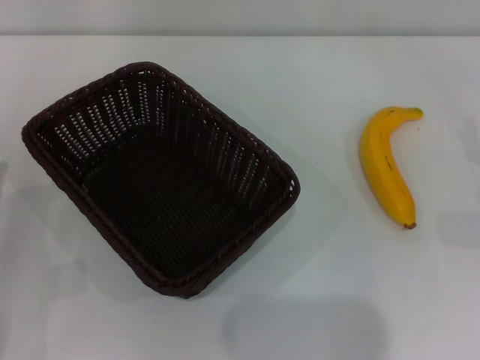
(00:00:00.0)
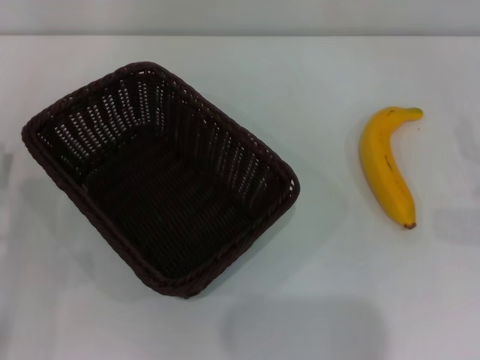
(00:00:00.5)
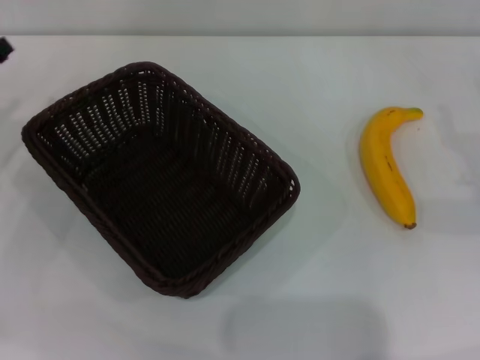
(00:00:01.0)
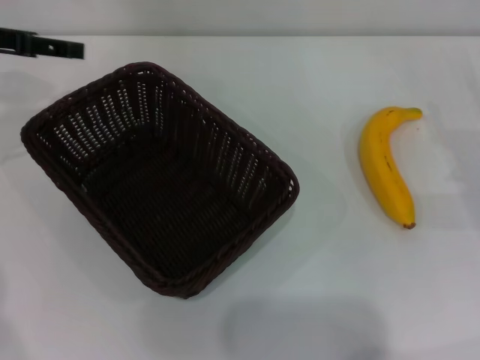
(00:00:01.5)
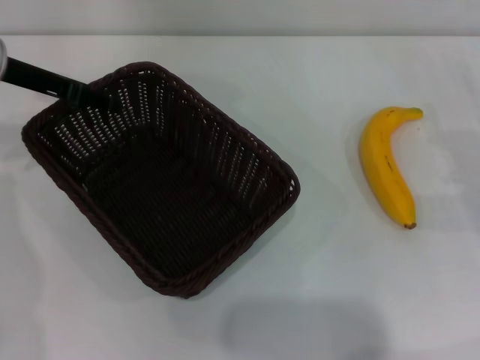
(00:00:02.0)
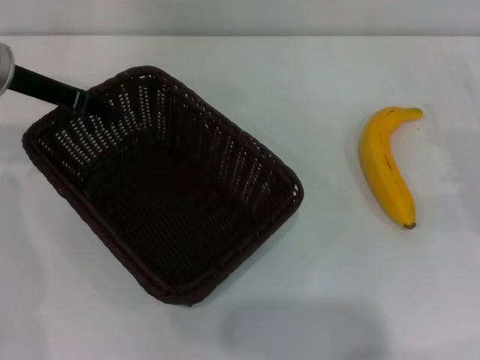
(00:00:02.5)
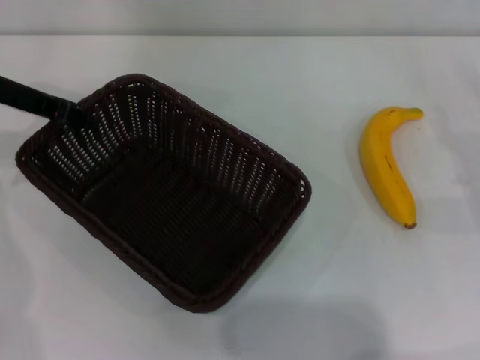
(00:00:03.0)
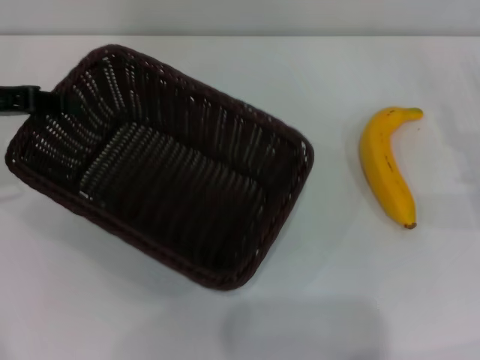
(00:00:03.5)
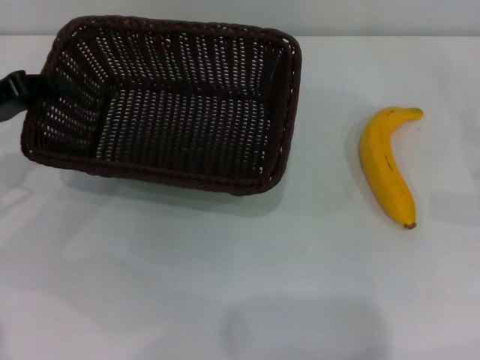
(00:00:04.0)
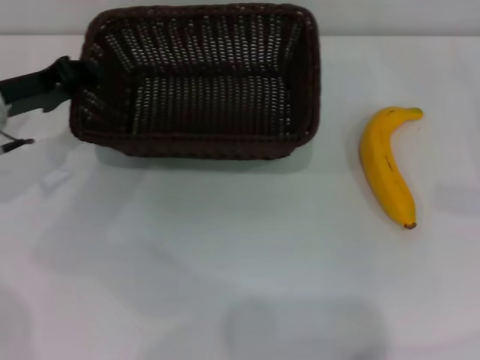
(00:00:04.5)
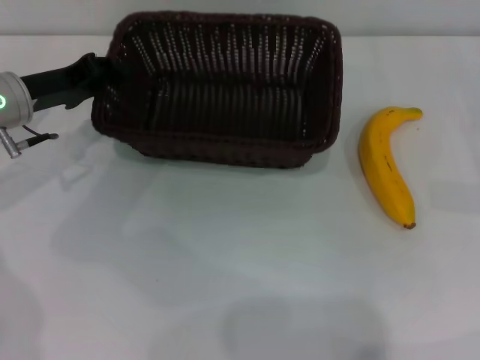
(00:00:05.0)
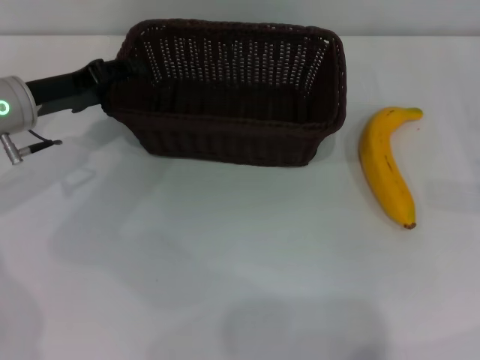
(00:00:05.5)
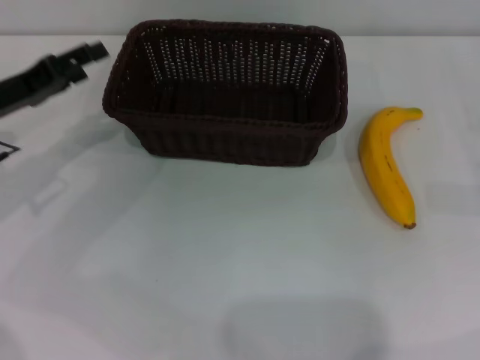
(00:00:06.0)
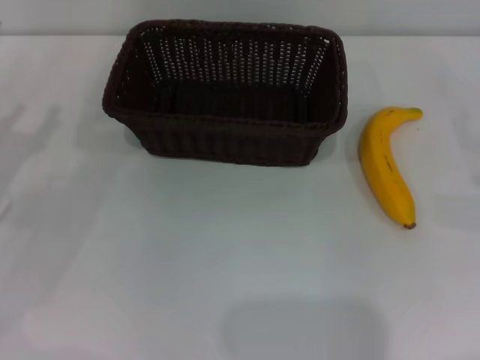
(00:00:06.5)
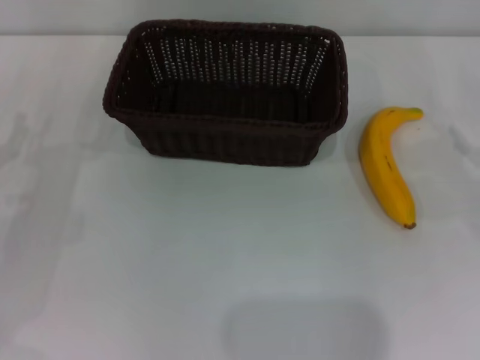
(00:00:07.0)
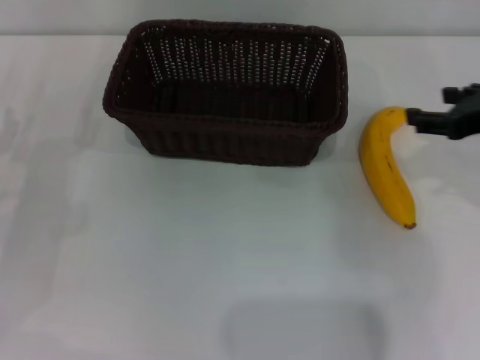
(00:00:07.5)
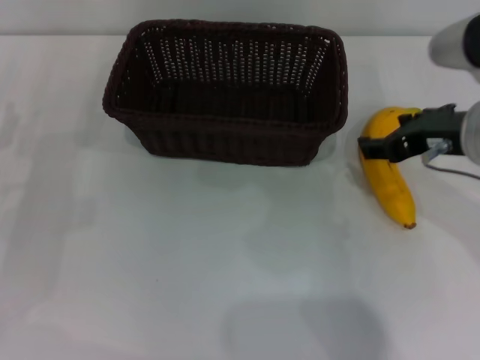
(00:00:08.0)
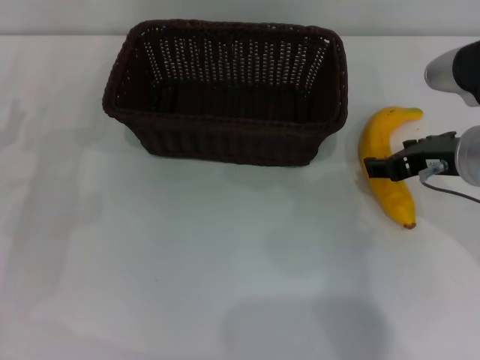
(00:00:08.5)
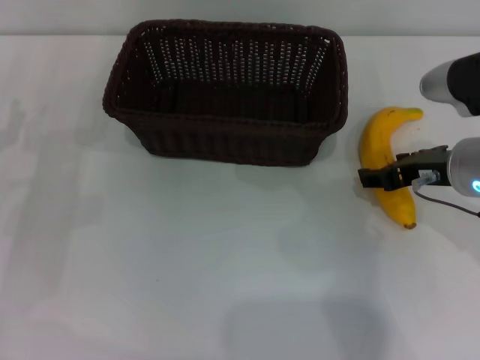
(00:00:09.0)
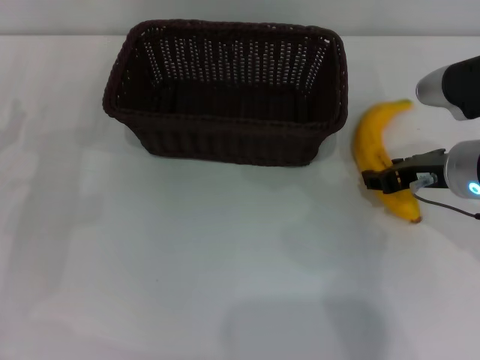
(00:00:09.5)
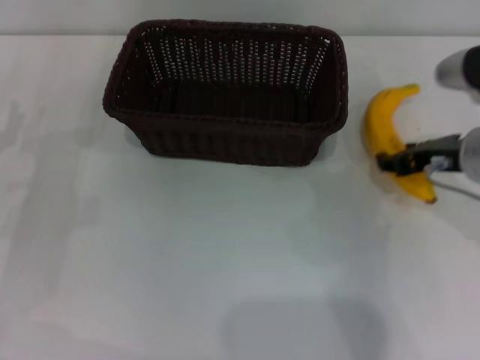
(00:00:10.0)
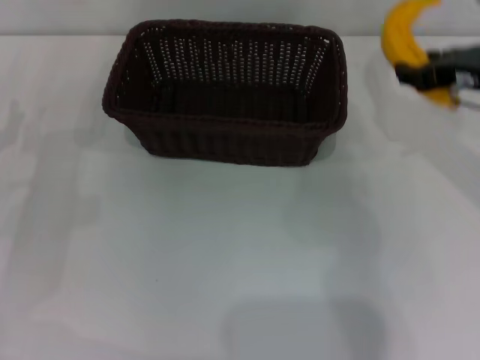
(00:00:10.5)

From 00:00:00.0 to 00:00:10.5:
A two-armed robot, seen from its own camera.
Step, from 00:00:00.0 to 00:00:03.5: Pick up the dark basket with the left gripper.
Step, from 00:00:04.0 to 00:00:06.0: Place the dark basket in the center of view with the left gripper.
Step, from 00:00:06.5 to 00:00:10.0: Pick up the banana with the right gripper.
From 00:00:00.0 to 00:00:02.0: The left gripper is displaced forward and upward by about 25 cm.
From 00:00:02.0 to 00:00:04.0: The left gripper heads backward and to the left, covering approximately 10 cm, and closes its fingers.
From 00:00:04.0 to 00:00:06.5: The left gripper travels backward by about 5 cm, and opens.
From 00:00:06.5 to 00:00:08.5: The right gripper travels to the left and upward by approximately 20 cm.
From 00:00:08.5 to 00:00:10.5: The right gripper ends up some 5 cm from where it was, and closes.

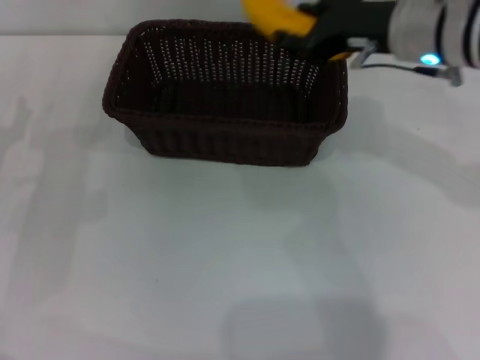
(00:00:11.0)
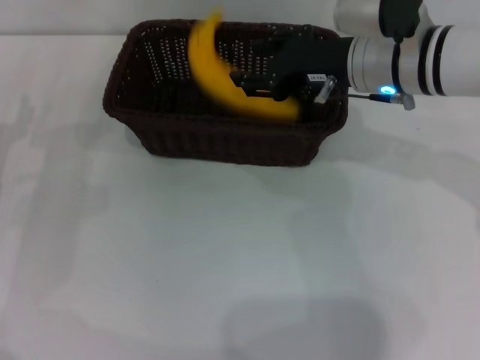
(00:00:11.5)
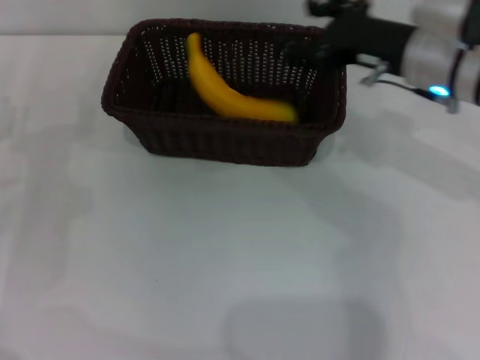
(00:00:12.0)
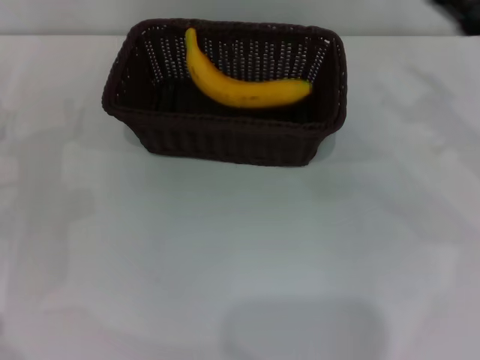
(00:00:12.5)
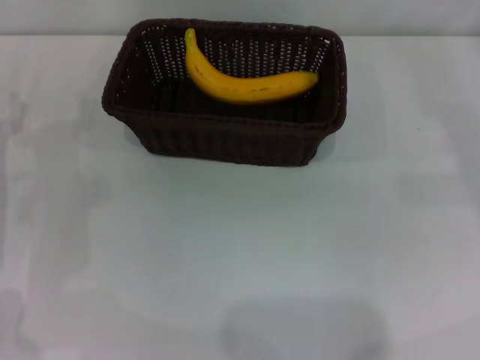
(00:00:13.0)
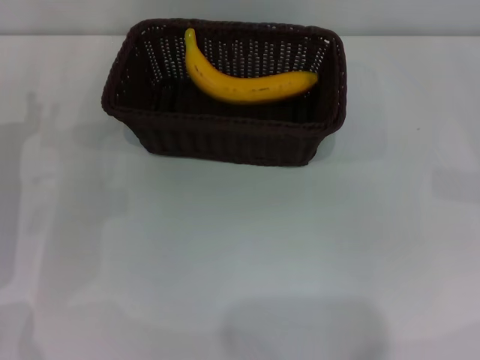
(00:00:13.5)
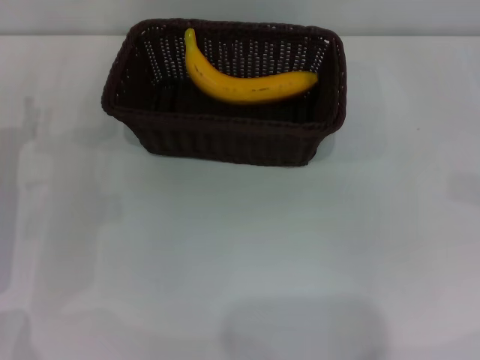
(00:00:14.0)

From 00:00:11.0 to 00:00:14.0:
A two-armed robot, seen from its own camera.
From 00:00:11.0 to 00:00:12.5: The right gripper heads to the right and downward, covering some 15 cm, and opens up.
From 00:00:12.5 to 00:00:14.0: The right gripper heads to the right and downward, covering some 15 cm.
